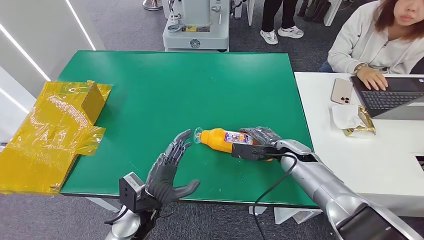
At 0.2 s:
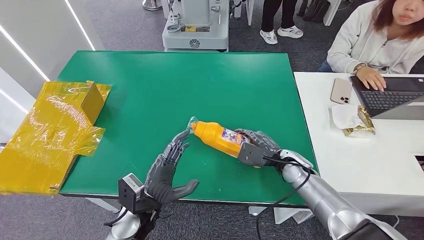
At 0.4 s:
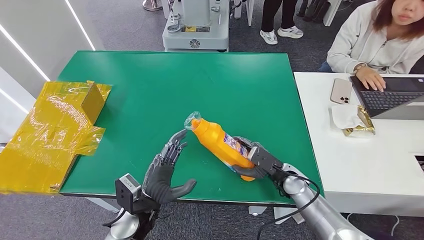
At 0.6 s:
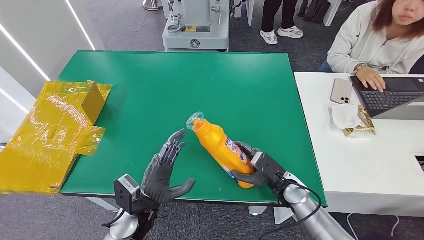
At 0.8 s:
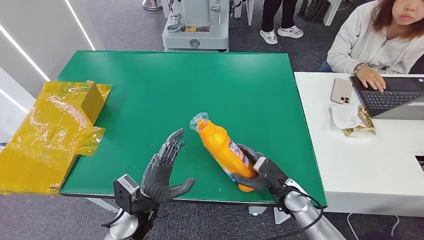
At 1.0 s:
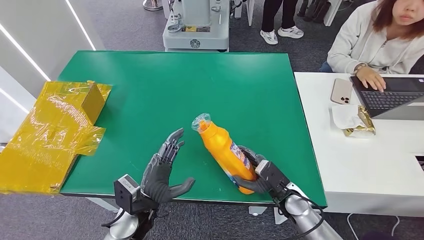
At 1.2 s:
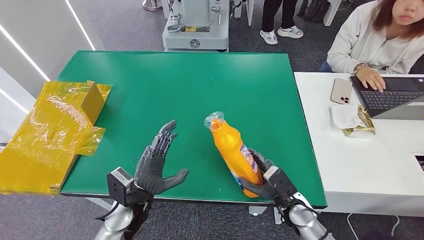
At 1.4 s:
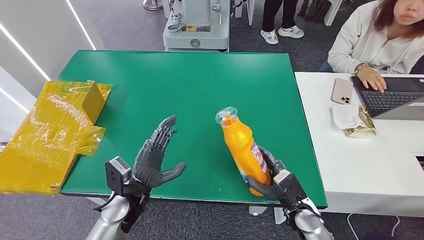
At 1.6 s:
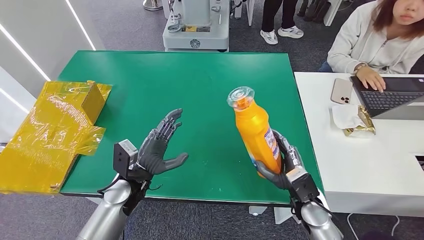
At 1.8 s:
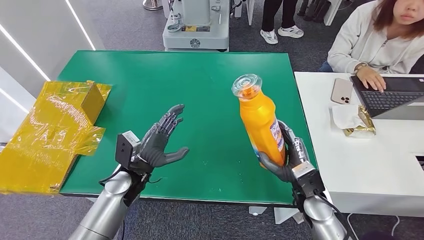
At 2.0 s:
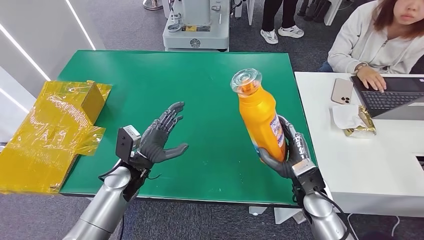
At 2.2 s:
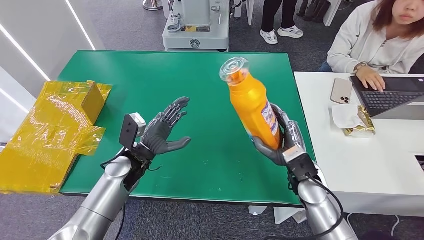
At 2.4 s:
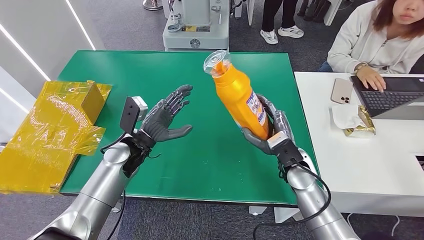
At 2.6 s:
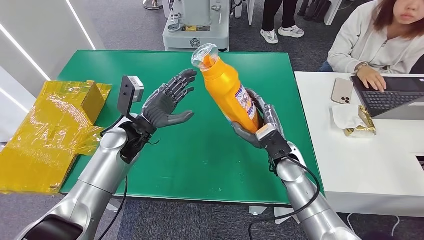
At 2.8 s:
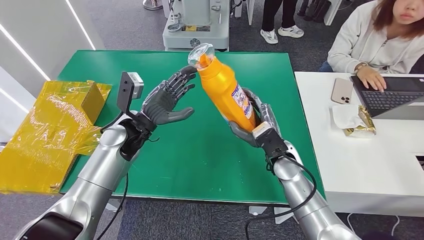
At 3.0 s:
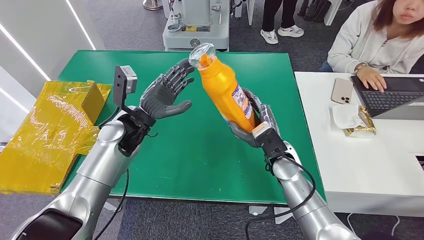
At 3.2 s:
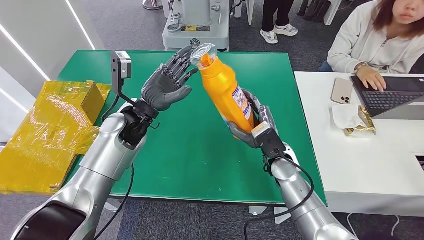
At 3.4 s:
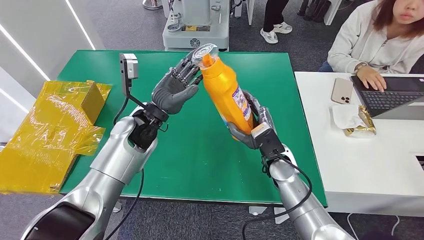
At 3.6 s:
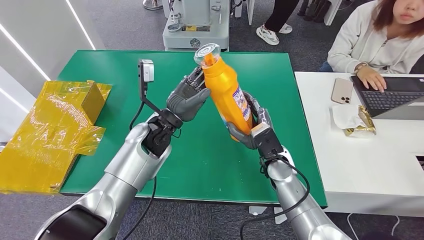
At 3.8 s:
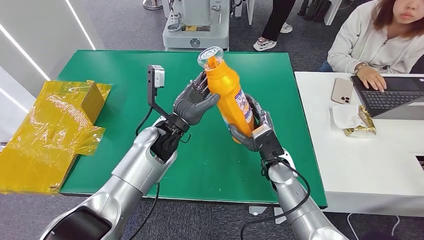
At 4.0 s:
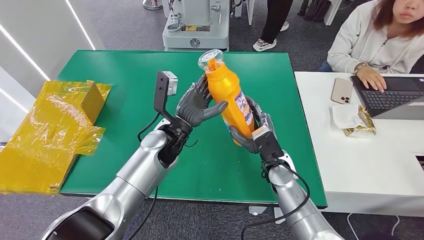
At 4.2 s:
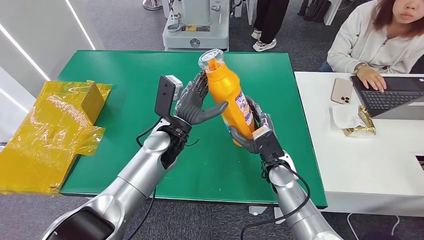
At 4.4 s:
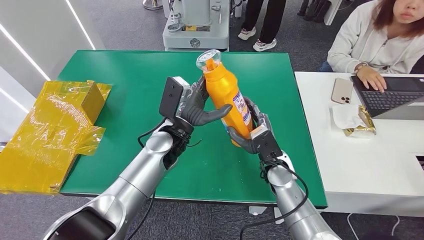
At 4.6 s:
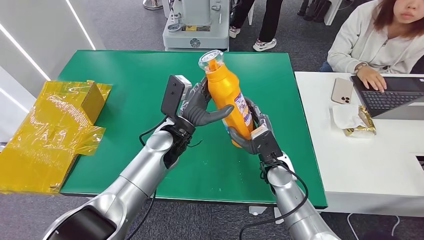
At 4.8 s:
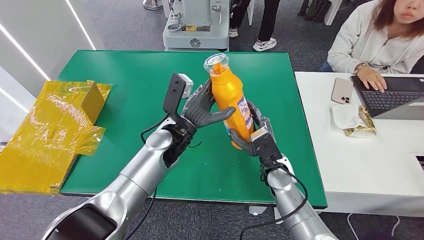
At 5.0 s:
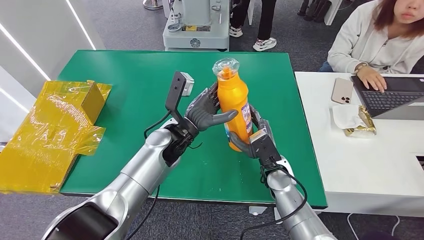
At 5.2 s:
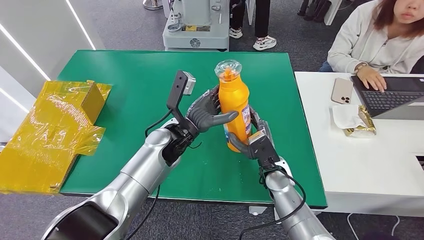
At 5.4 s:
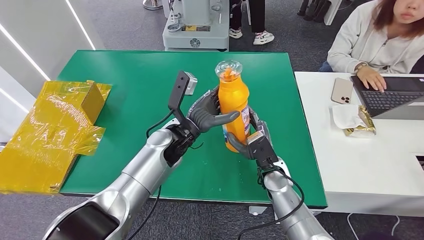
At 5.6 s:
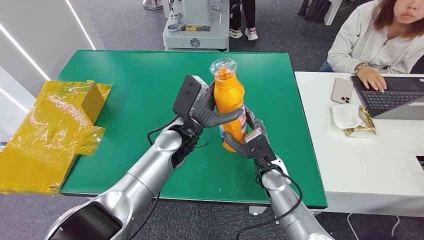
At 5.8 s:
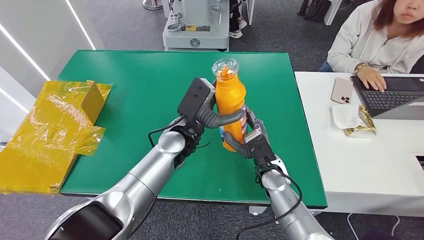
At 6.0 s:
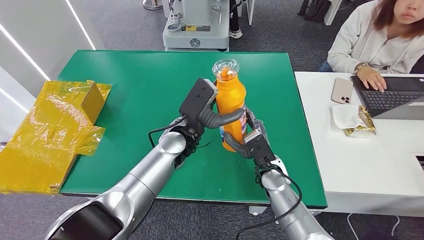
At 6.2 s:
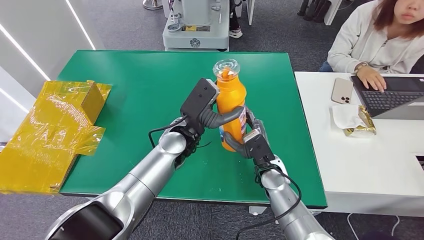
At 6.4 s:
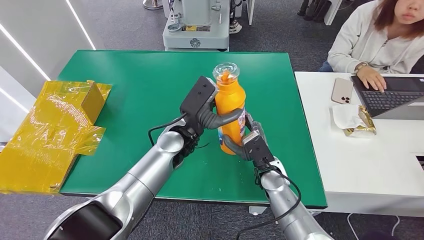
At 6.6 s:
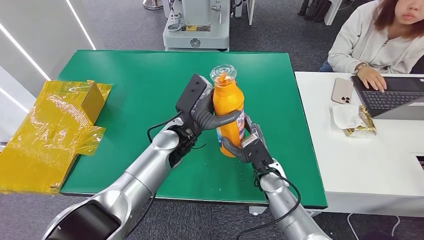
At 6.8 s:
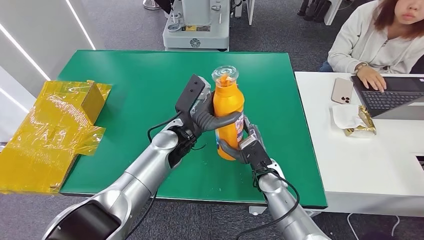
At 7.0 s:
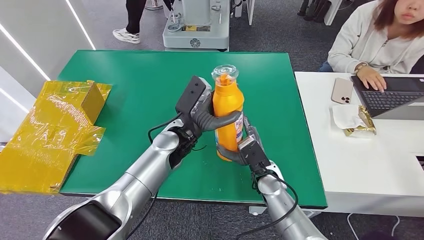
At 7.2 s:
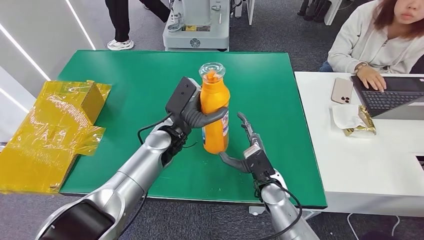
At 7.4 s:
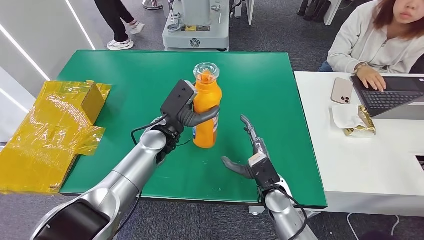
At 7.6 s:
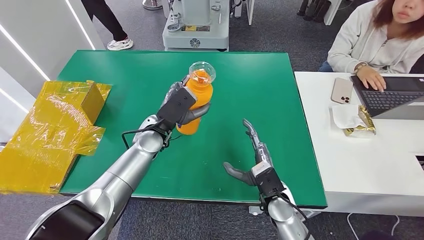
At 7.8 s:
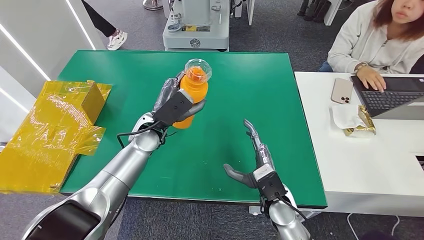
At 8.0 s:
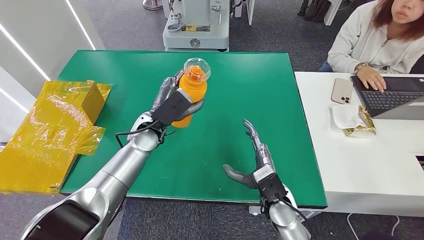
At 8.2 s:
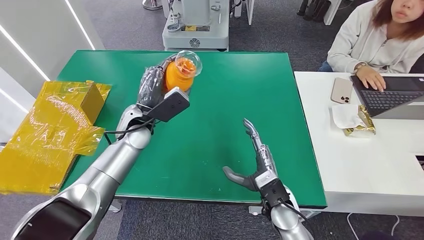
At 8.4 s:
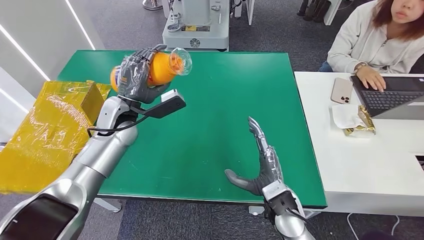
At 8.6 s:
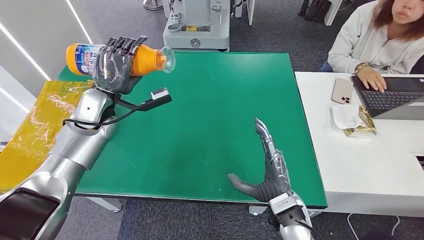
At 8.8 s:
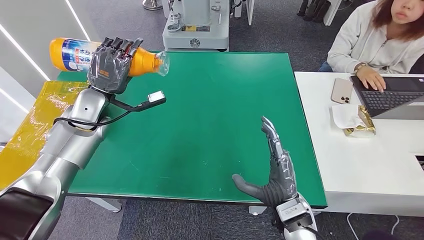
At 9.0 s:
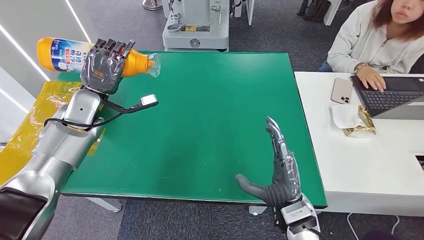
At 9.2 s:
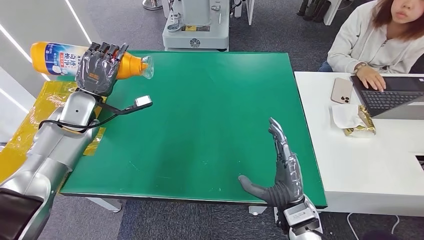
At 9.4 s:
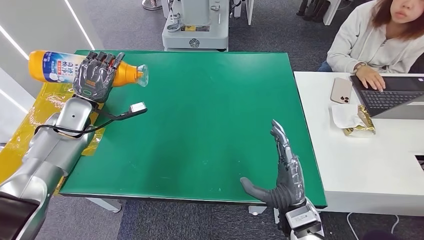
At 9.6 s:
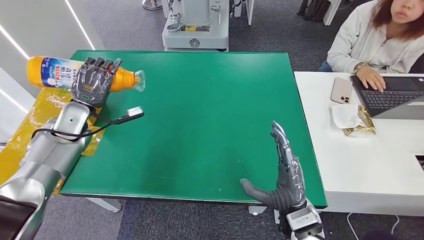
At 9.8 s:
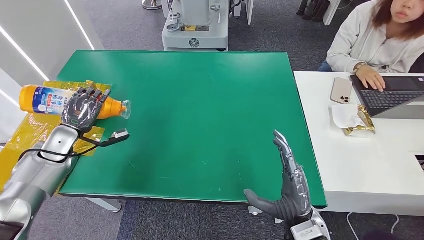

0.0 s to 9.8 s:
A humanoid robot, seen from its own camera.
Step, 0.0 to 3.0 s: Pick up the bottle from the table.
Step, 4.4 to 9.8 s: Turn the bottle to the front side.
0.0 to 1.4 s: The right hand goes about 15 cm backward and downward.
2.8 to 4.2 s: The left hand is displaced to the right by approximately 10 cm.
5.6 to 7.0 s: There are only small adjustments of the hands.
8.4 to 9.8 s: The right hand ends up about 5 cm from where it was; the left hand travels to the left by about 20 cm.
